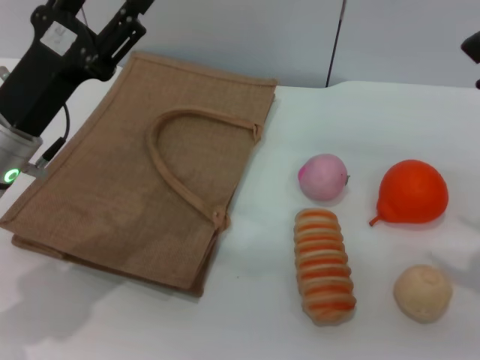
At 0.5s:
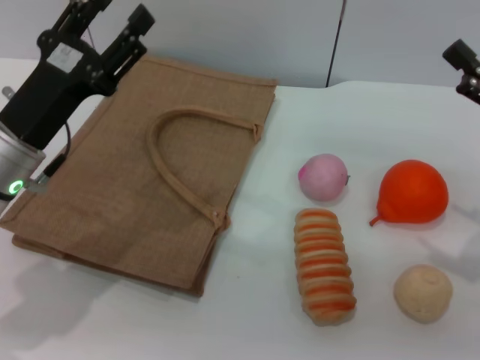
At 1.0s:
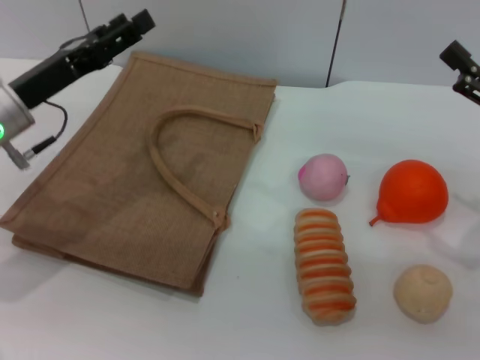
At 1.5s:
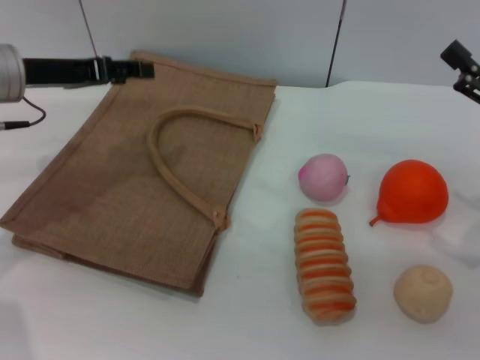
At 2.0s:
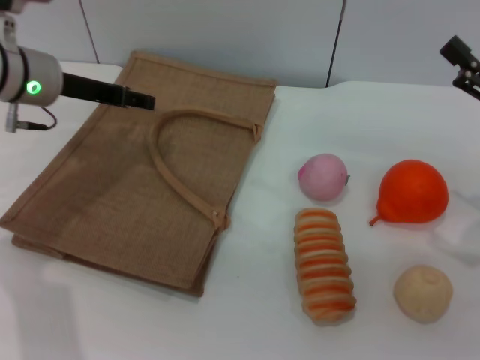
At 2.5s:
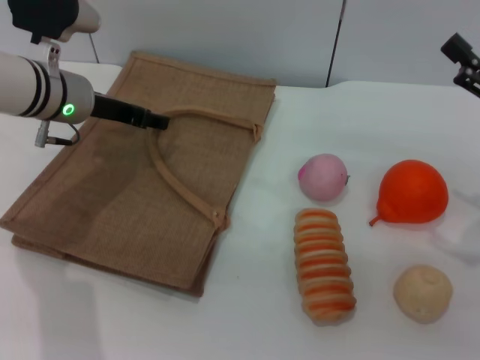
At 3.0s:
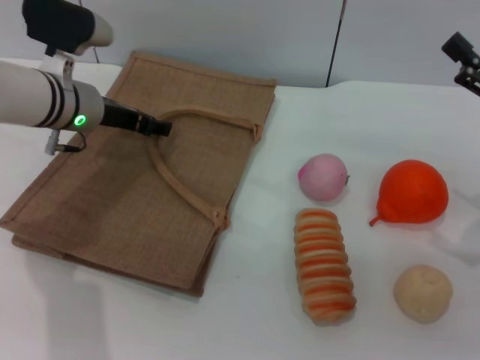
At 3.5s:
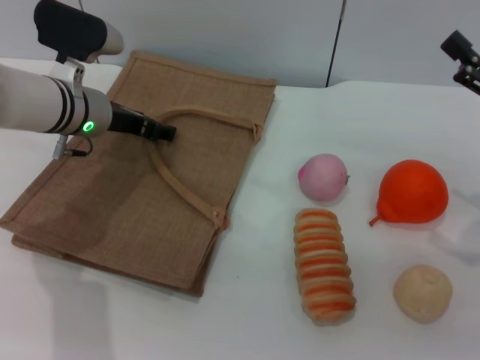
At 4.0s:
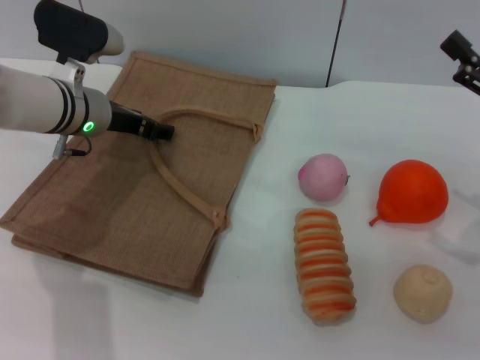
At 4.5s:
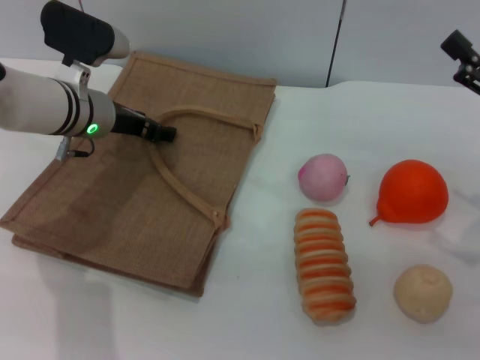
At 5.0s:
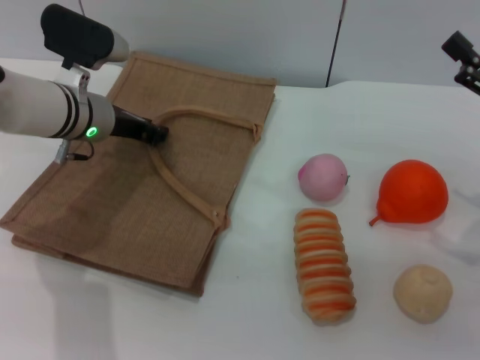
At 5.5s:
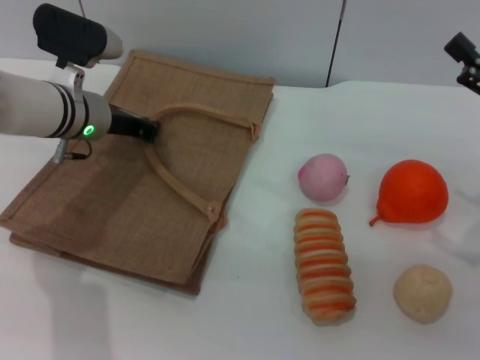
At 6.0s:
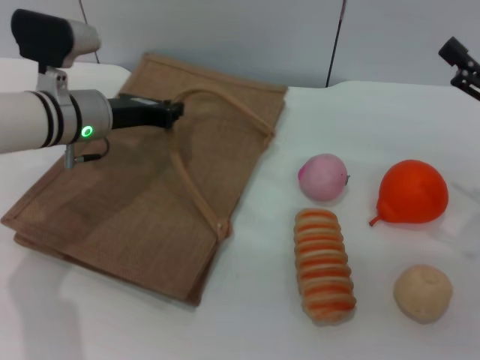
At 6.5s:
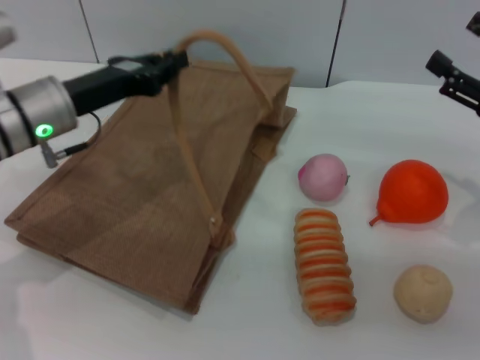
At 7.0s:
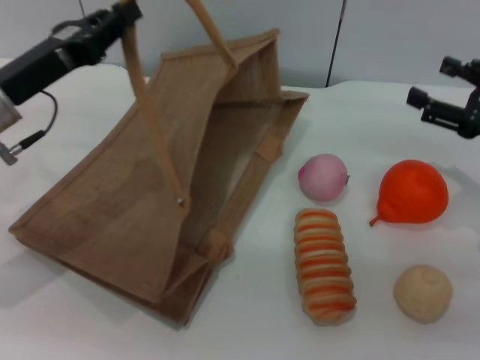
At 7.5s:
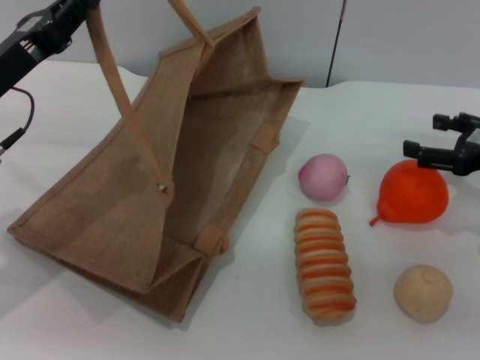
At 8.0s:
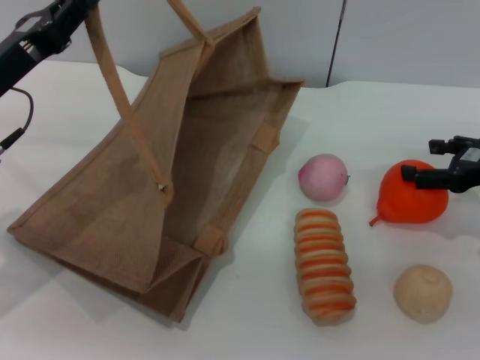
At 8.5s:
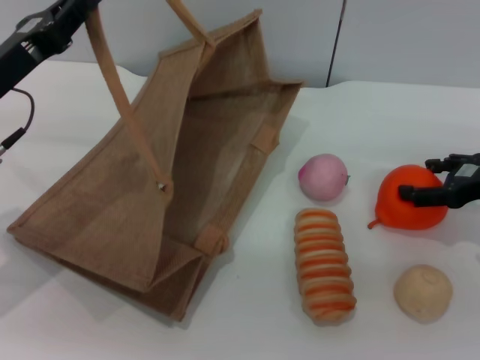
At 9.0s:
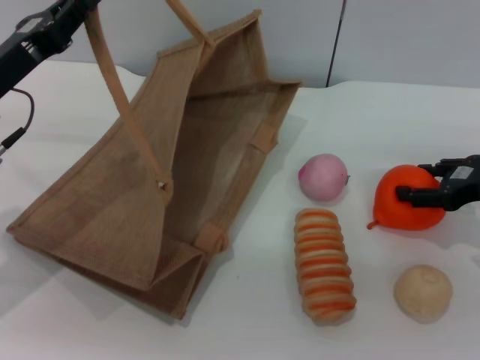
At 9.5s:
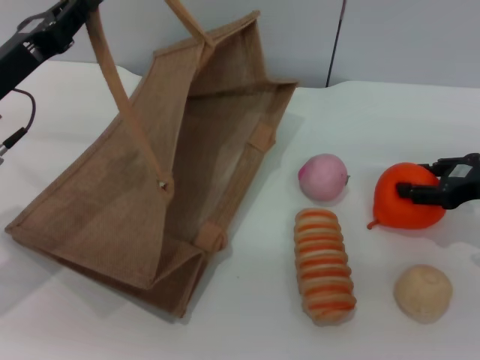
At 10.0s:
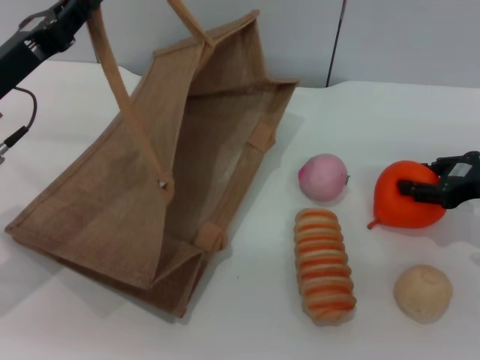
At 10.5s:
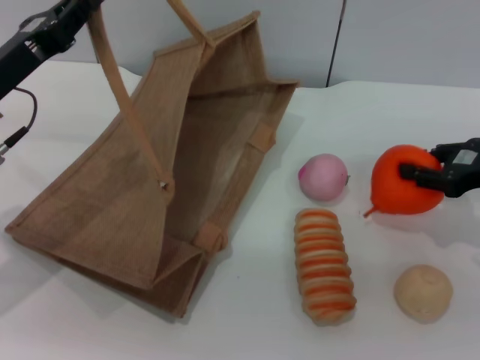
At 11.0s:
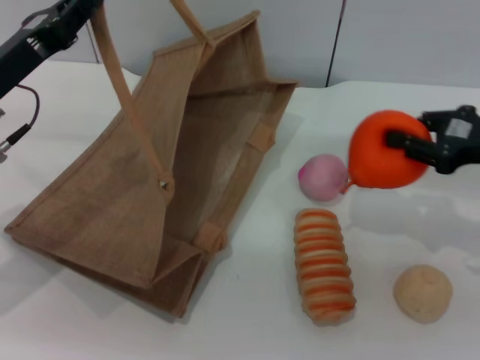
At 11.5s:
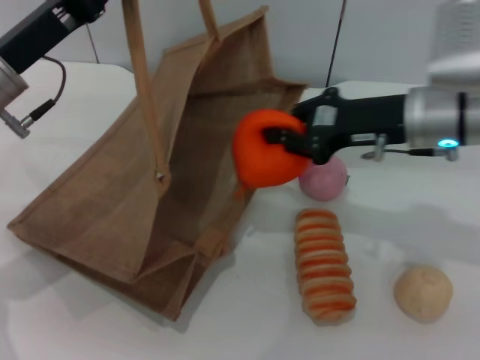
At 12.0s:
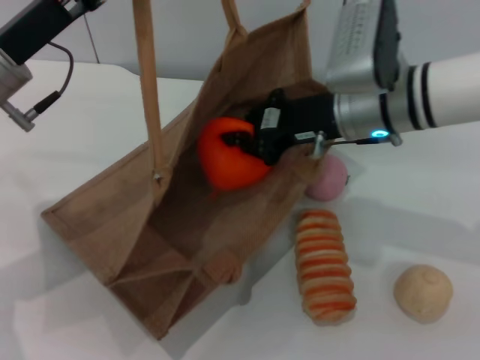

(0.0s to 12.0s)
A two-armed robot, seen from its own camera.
Task of the whole recording: pick up the orange and peach from the table and place it in the brown handbag.
Step, 0.0s - 6.5s: Lift the woven bag with the left gripper to open it.
Step, 7.0s - 10.5s: Pick up the orange with the right gripper.
0.0s - 2.0s: The left gripper is displaced forward by about 10 cm.
2.0s - 4.0s: The left gripper moves downward, approximately 5 cm.
4.0s - 6.0s: The left gripper closes its fingers.
6.0s - 8.0s: The right gripper moves roughly 5 cm. Meanwhile the left gripper goes about 10 cm backward and to the left.
8.0s - 10.0s: The right gripper closes.
10.0s - 12.0s: The left gripper shifts by some 5 cm; the right gripper heads to the left, covering approximately 20 cm, and closes.

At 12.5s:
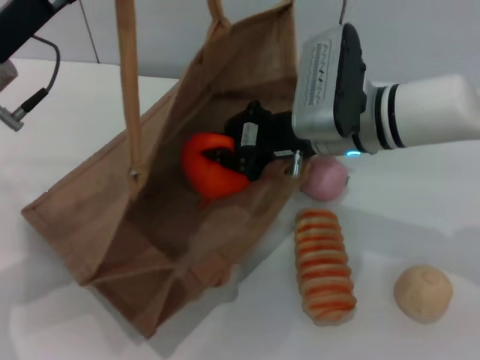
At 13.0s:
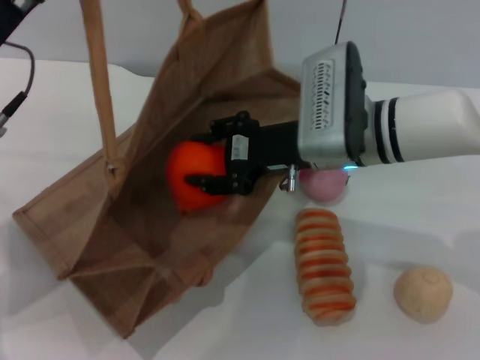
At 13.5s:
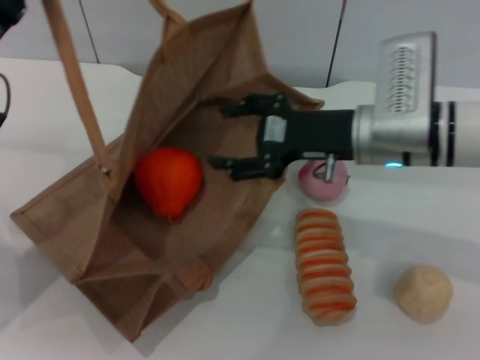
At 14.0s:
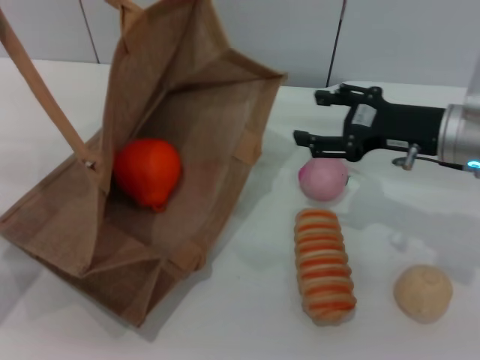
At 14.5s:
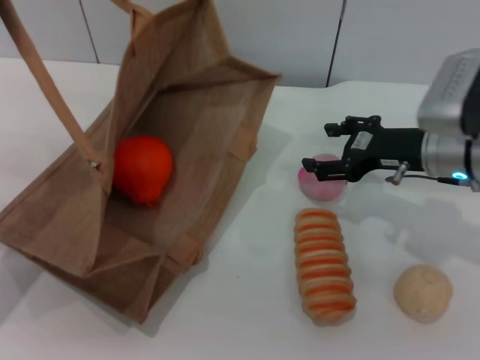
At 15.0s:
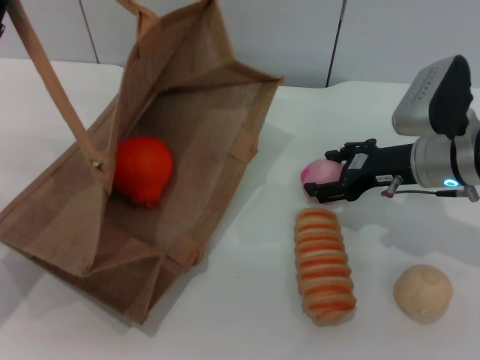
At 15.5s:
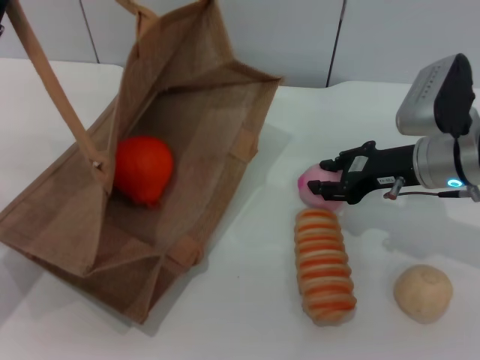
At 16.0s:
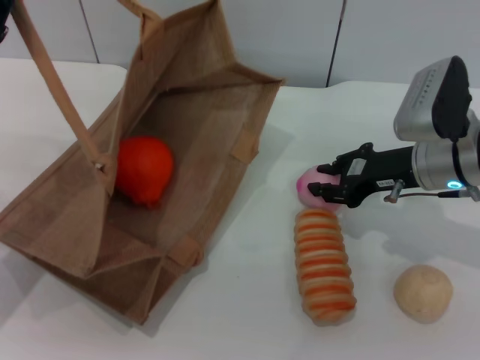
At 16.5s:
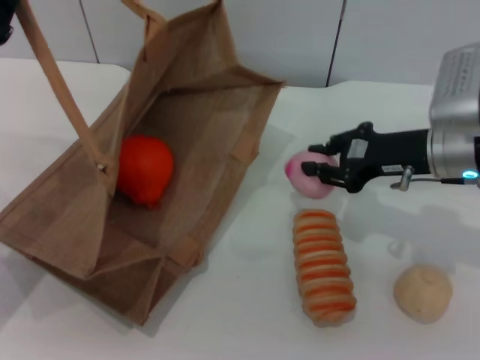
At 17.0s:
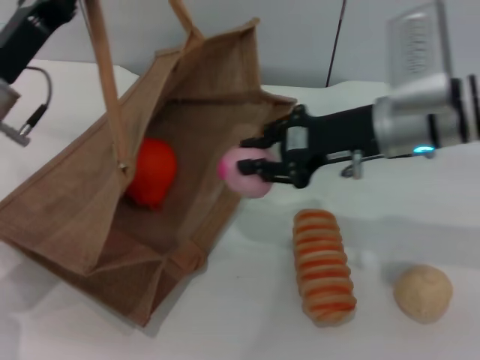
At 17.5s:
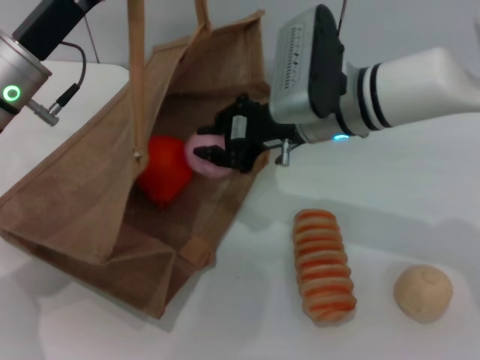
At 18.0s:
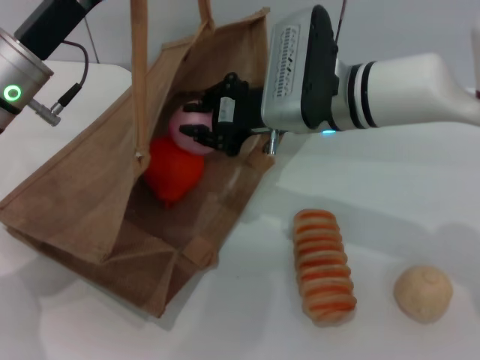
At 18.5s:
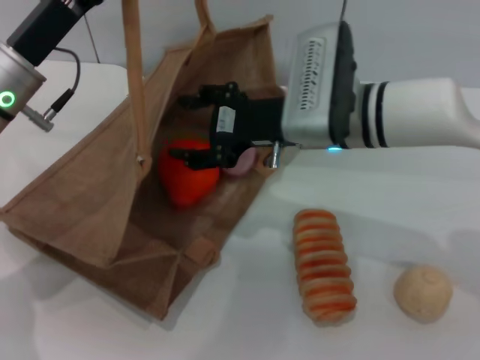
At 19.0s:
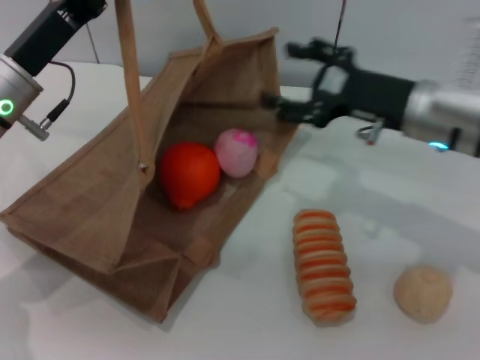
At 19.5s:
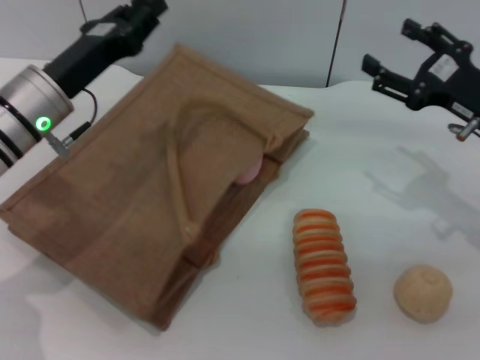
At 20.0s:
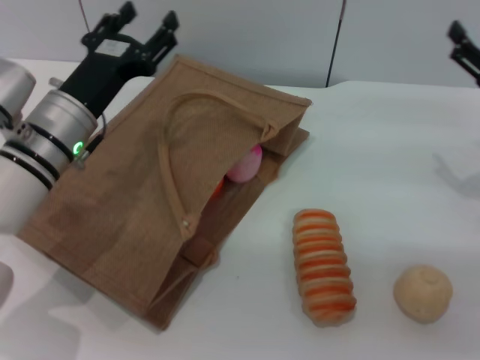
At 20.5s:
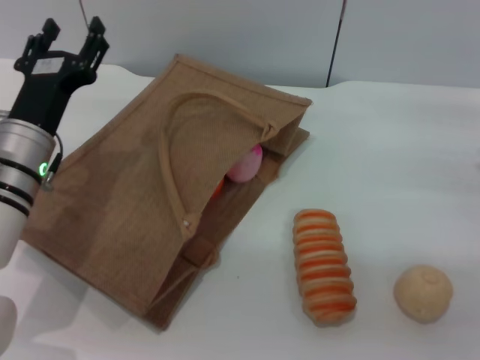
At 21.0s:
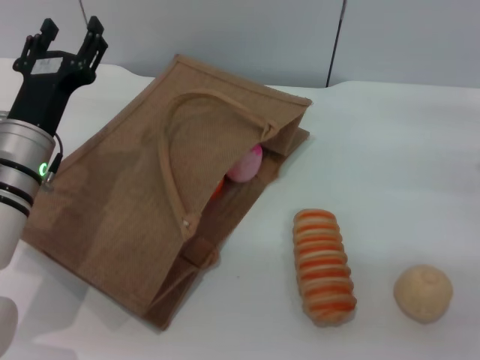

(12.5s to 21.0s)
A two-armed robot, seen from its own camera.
Task of the whole recording: pick up the orange and peach from the table and place it in the brown handbag.
Step, 13.5s - 16.0s: Pick up the peach with the right gripper.
Step, 16.5s - 18.5s: Place the peach into the woven bag with the right gripper.
Step, 19.0s - 19.5s: Lower the woven bag with the left gripper to close it.
12.5s - 14.5s: The right gripper goes about 10 cm to the right, and opens up. The left gripper moves downward and to the left, about 10 cm.
14.5s - 16.5s: The right gripper closes its fingers.
16.5s - 19.0s: The right gripper travels to the left and back again, about 15 cm each way, and opens its fingers; the left gripper heads to the right, covering about 5 cm.
19.0s - 21.0s: The left gripper shifts roughly 5 cm downward, and opens up, while the right gripper shifts approximately 15 cm to the right and backward.
